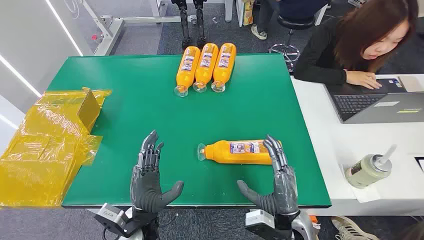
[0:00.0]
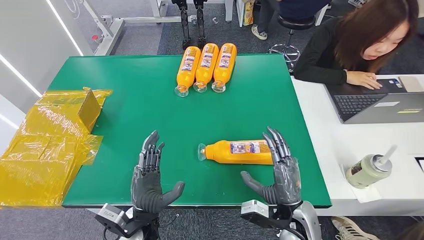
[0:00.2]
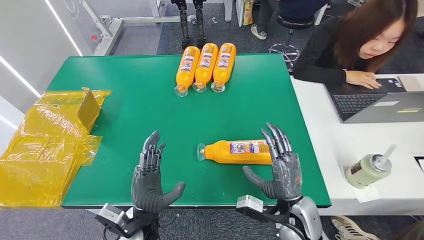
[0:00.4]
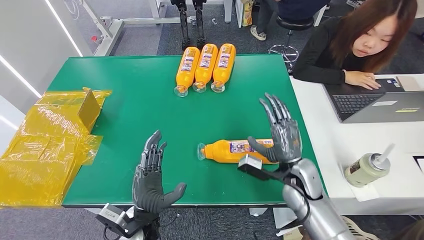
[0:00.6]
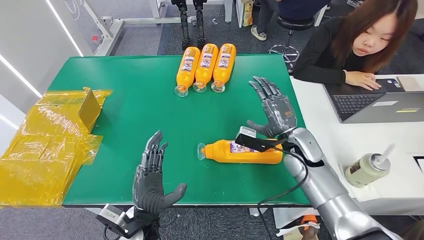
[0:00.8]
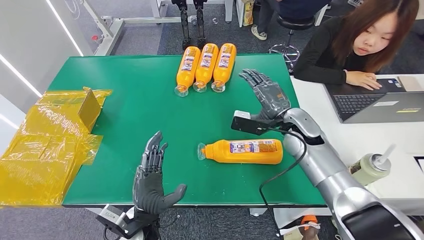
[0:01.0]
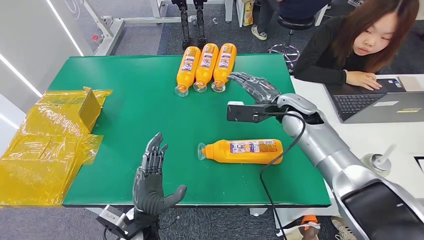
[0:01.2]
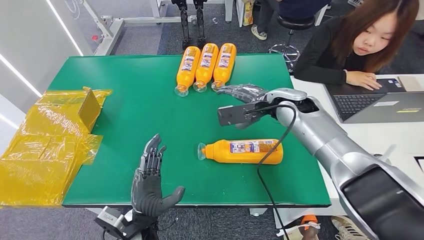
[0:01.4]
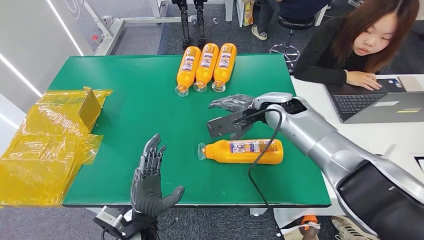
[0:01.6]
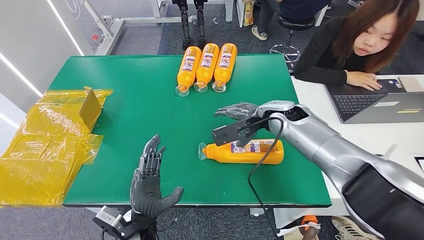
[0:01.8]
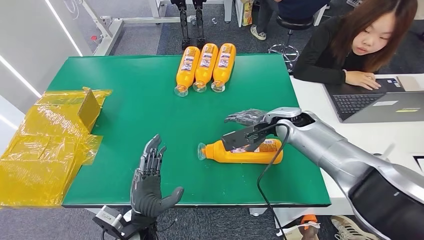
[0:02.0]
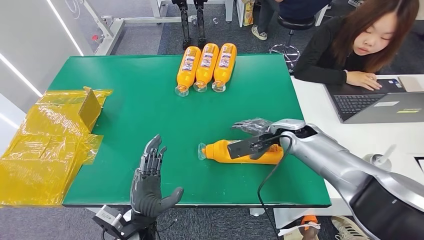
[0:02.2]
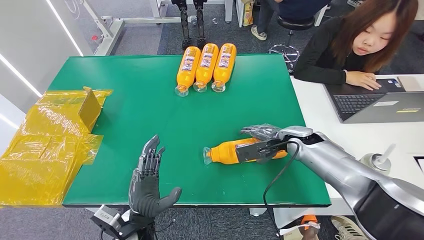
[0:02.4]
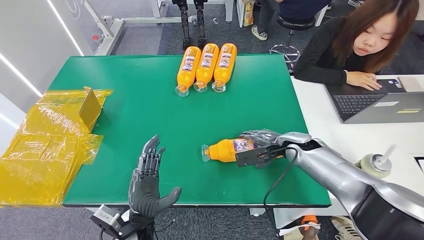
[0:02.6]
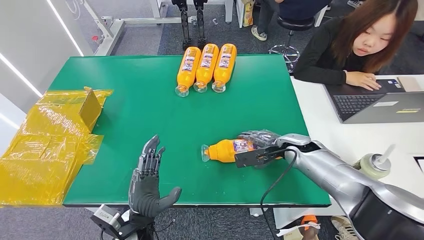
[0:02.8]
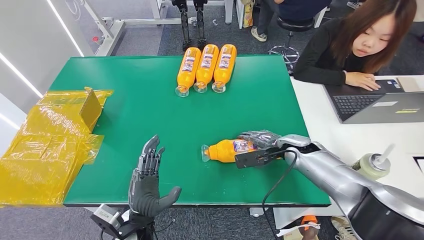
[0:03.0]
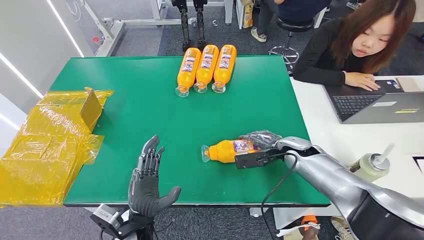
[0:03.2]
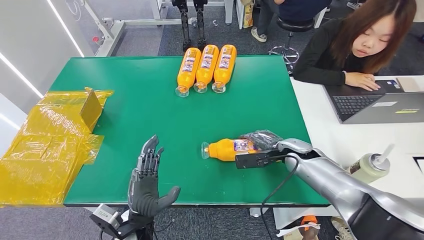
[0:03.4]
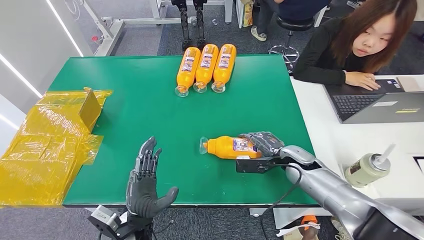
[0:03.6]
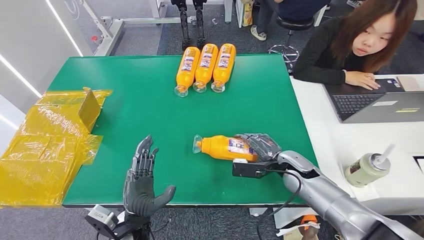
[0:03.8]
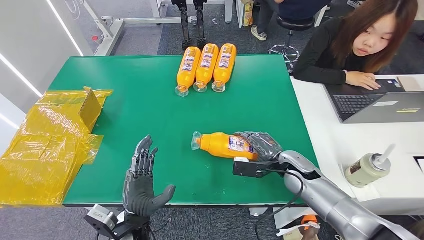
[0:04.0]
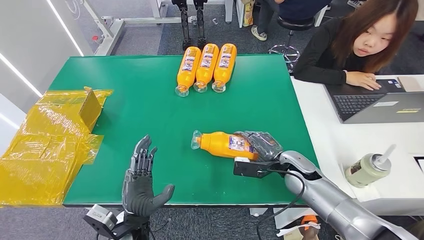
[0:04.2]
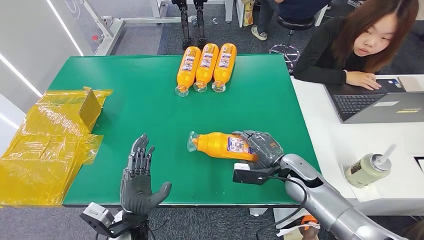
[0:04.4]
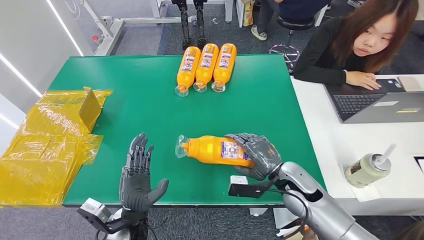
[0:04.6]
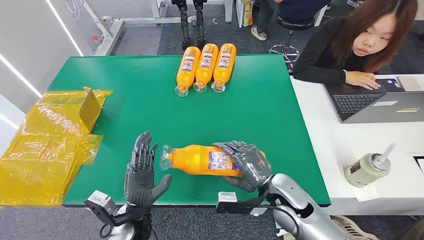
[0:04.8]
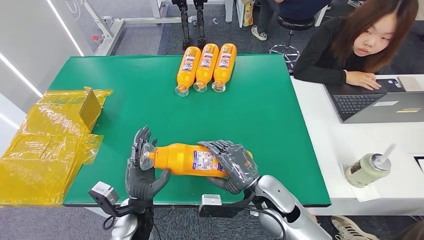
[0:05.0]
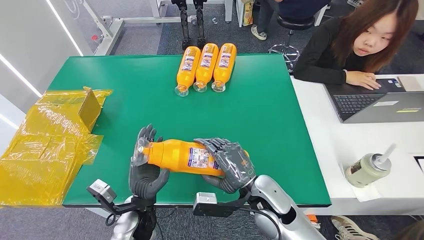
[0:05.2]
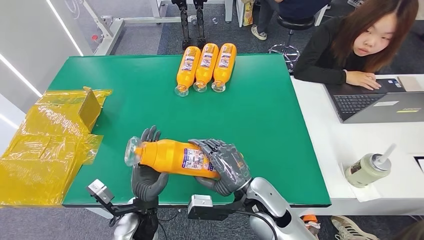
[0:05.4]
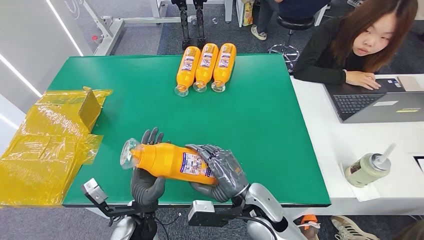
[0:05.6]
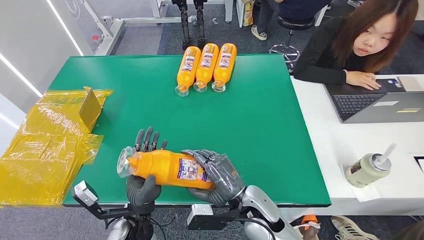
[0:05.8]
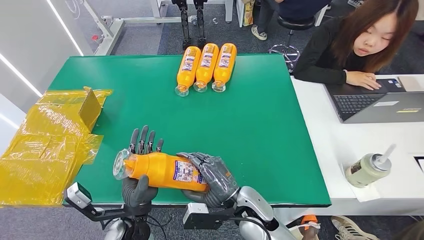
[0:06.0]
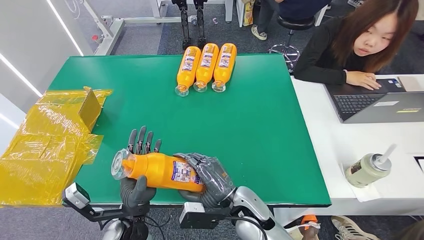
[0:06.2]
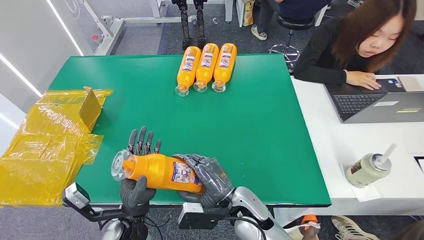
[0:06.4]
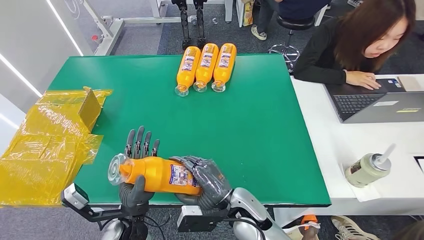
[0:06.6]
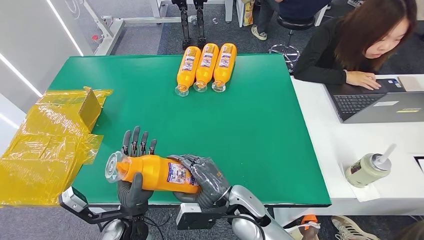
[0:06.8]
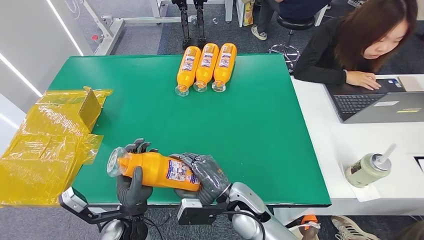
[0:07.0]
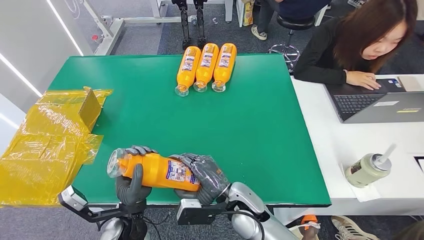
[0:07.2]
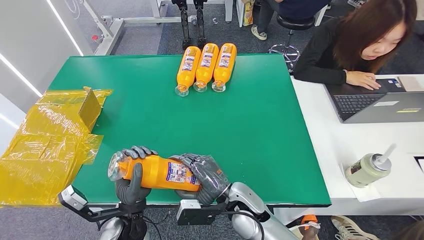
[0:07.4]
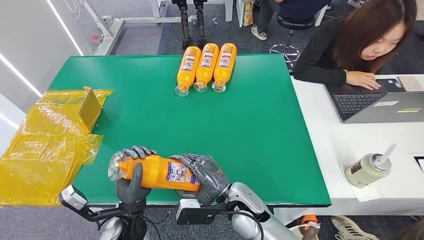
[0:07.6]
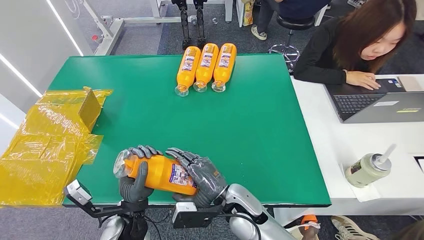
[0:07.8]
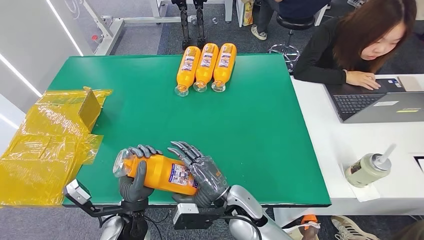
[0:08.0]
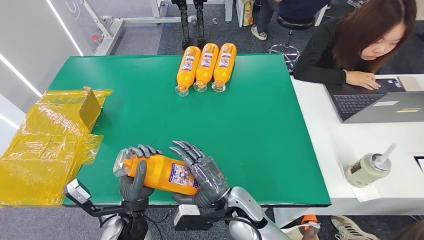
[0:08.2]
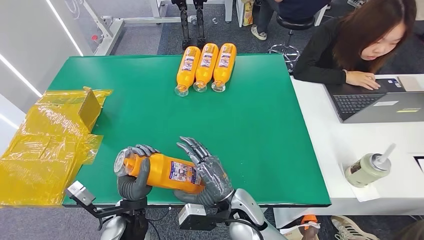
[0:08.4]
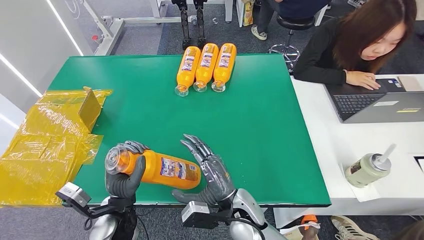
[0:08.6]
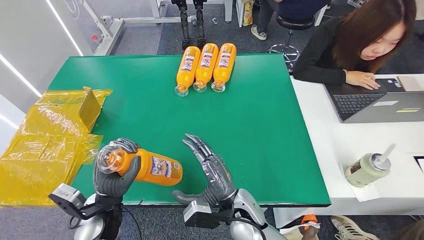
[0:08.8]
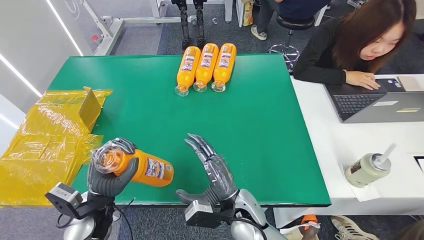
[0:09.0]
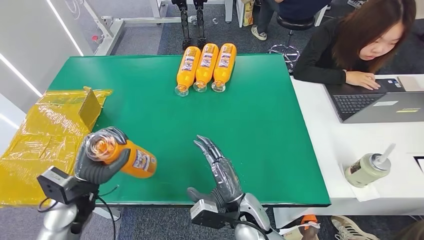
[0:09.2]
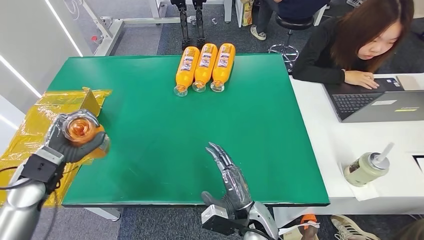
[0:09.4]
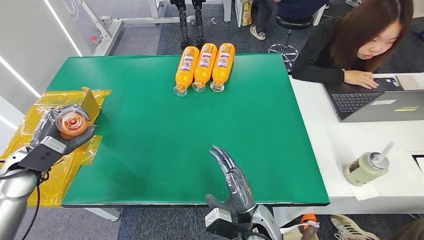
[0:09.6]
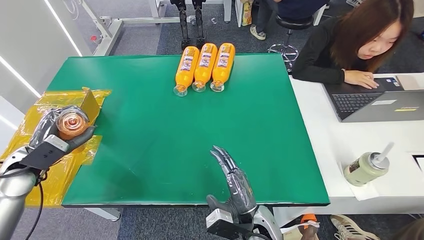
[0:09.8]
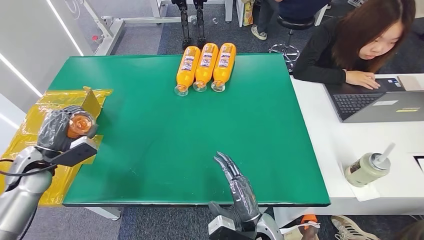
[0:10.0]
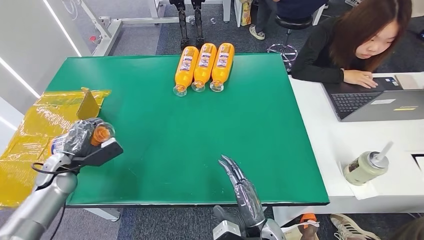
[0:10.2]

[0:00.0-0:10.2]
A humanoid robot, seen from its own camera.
Step, 0:00.0 to 0:04.2: Pick up the bottle from the table.
0:01.4 to 0:03.0: The right hand shifts roughly 15 cm downward and to the right.
0:03.0 to 0:04.4: The right hand moves backward, approximately 5 cm.
0:04.4 to 0:05.8: The right hand travels to the left and backward by some 20 cm.
0:05.8 to 0:07.2: The hands make only small movements.
0:07.2 to 0:08.8: The left hand shifts approximately 5 cm to the left.

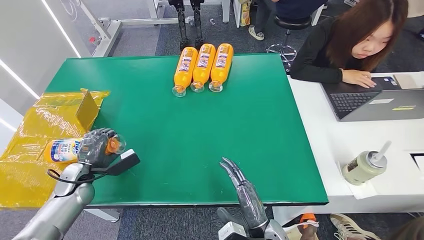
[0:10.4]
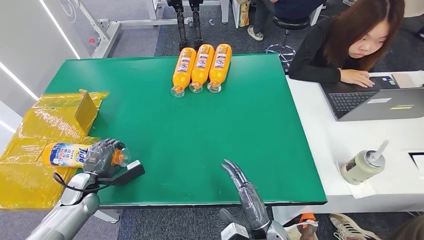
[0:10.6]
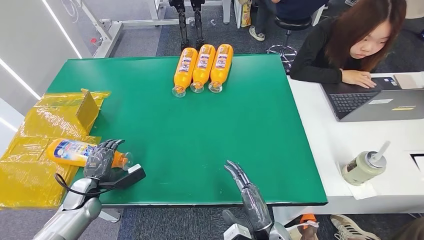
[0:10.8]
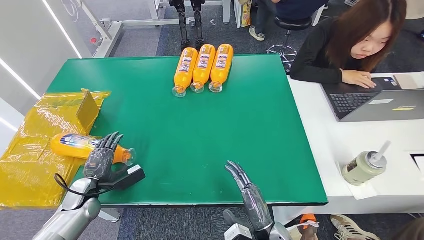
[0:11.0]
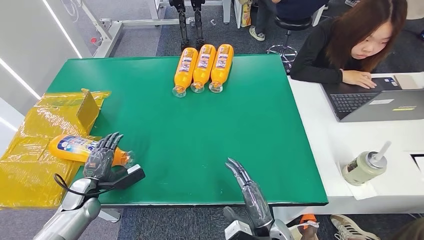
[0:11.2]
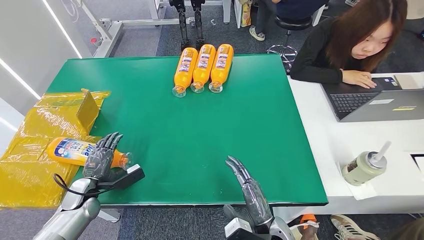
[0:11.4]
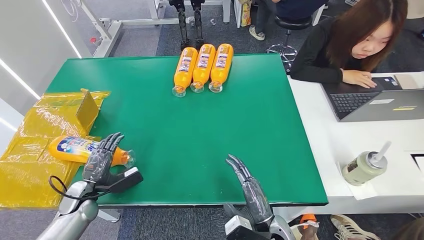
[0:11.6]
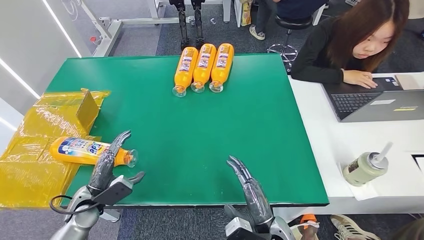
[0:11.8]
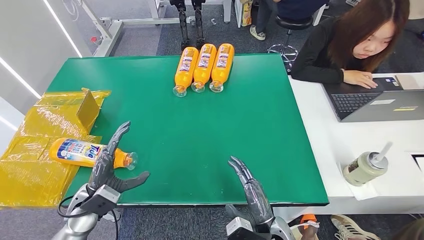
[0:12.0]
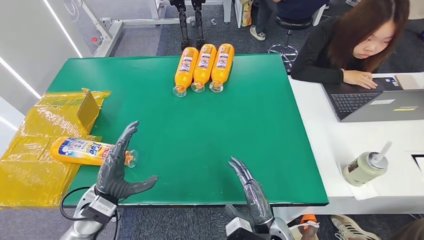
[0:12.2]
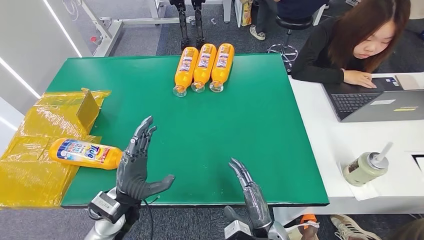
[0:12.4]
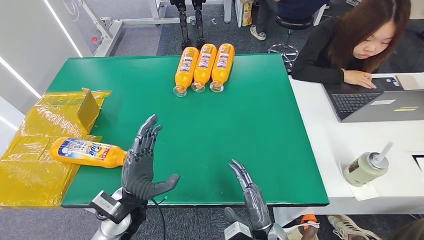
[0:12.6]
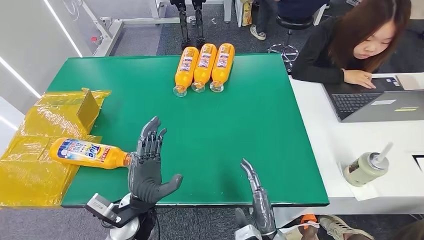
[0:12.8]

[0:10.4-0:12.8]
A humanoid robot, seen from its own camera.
Step, 0:10.4 to 0:12.6: Turn the bottle to the front side.
0:10.4 to 0:11.6: The left hand ends up some 5 cm from where it was.
0:11.6 to 0:12.8: The left hand is displaced to the right by approximately 25 cm.
